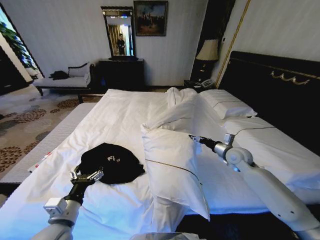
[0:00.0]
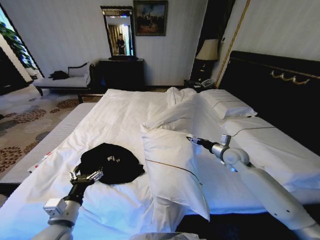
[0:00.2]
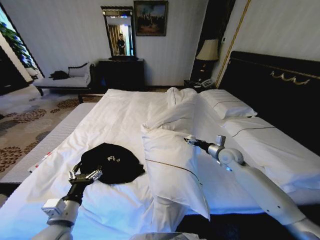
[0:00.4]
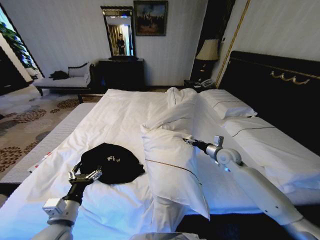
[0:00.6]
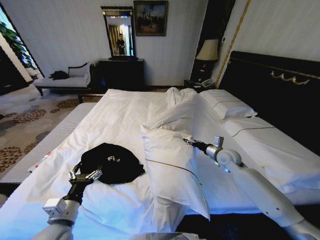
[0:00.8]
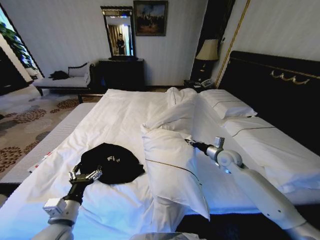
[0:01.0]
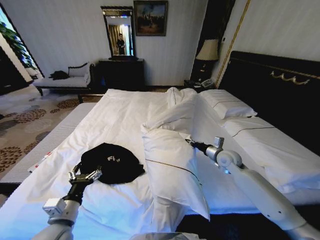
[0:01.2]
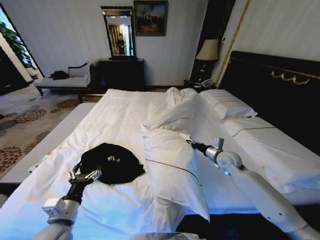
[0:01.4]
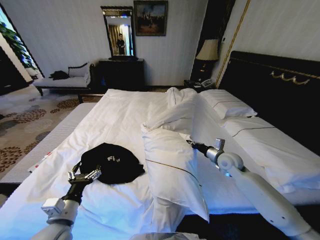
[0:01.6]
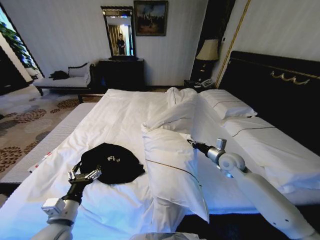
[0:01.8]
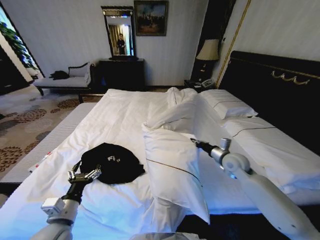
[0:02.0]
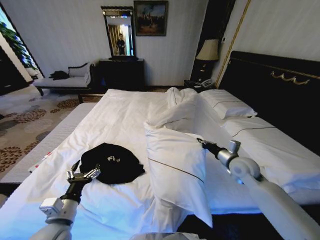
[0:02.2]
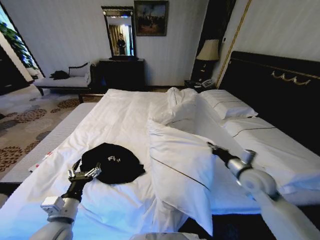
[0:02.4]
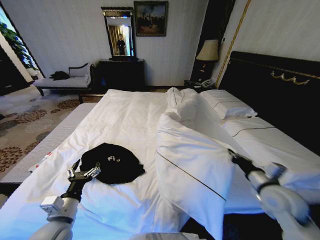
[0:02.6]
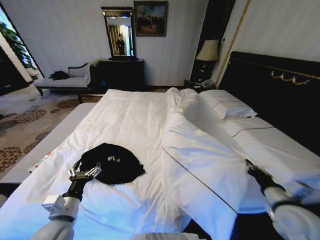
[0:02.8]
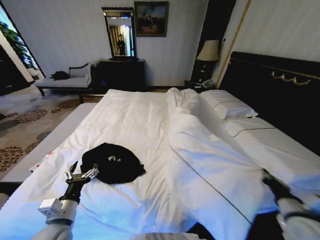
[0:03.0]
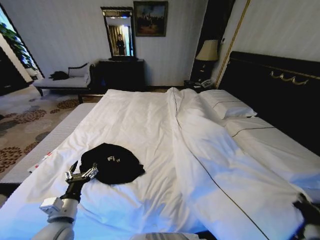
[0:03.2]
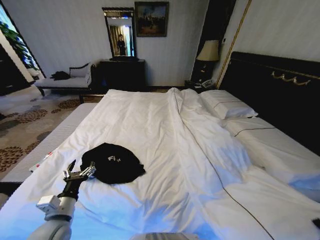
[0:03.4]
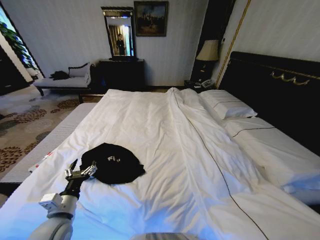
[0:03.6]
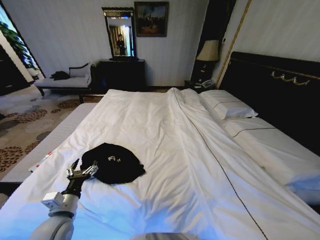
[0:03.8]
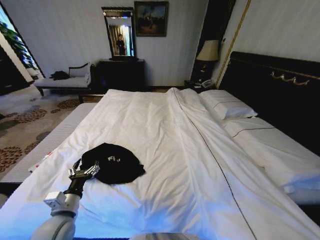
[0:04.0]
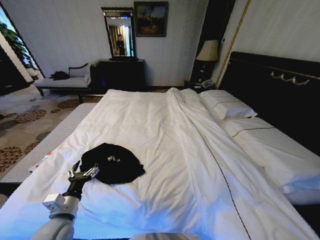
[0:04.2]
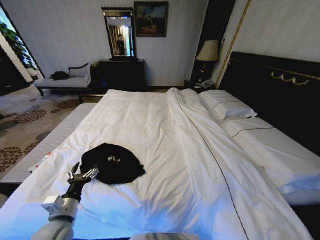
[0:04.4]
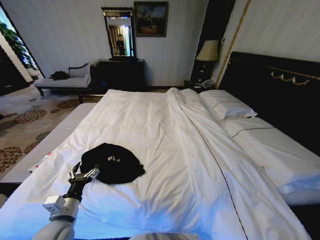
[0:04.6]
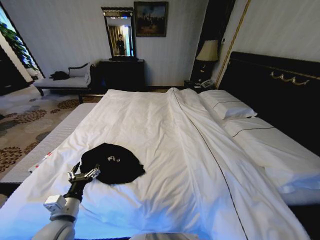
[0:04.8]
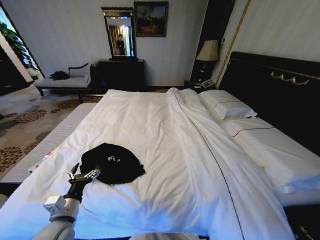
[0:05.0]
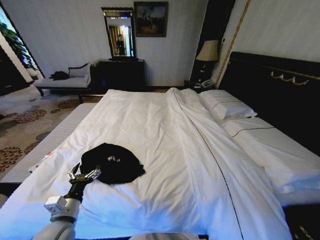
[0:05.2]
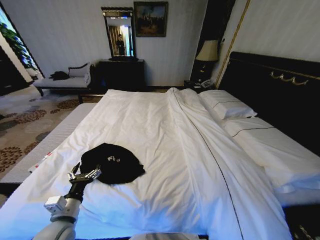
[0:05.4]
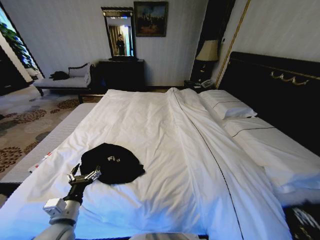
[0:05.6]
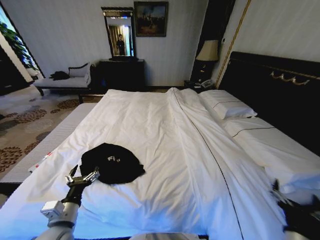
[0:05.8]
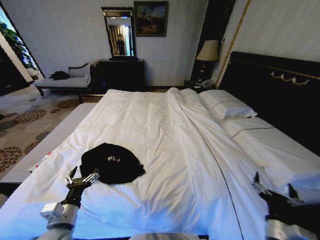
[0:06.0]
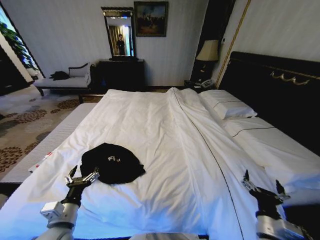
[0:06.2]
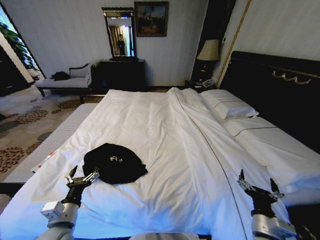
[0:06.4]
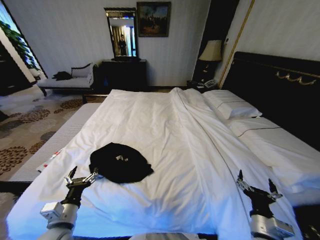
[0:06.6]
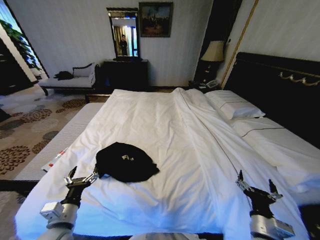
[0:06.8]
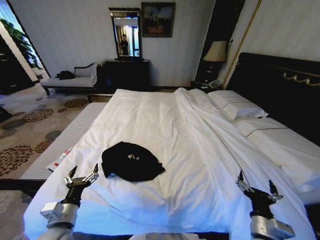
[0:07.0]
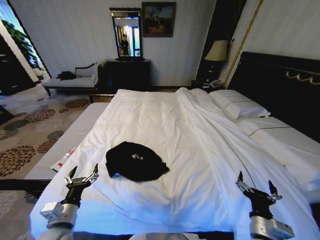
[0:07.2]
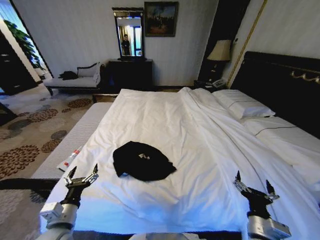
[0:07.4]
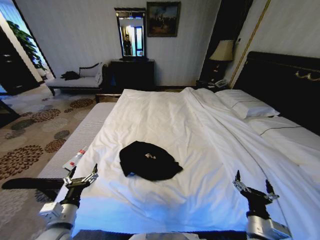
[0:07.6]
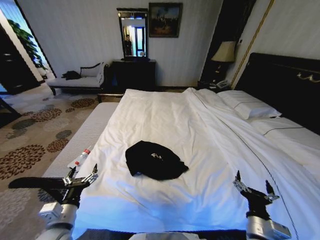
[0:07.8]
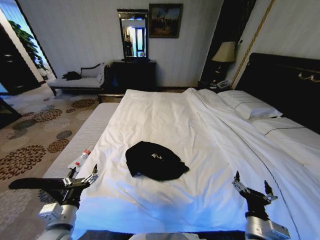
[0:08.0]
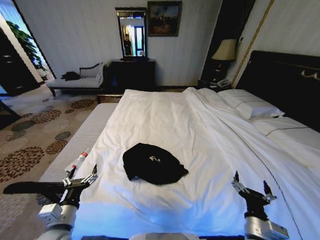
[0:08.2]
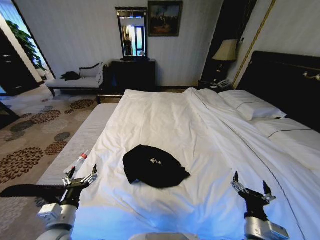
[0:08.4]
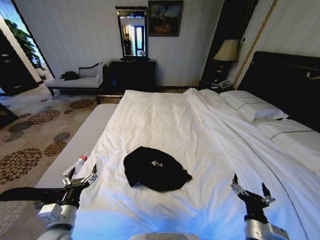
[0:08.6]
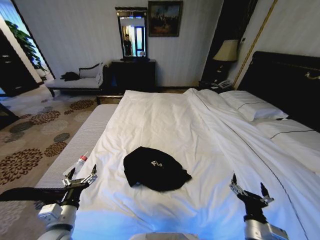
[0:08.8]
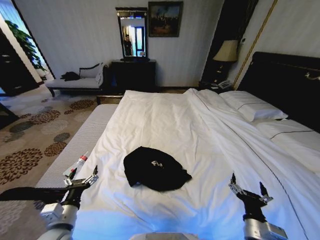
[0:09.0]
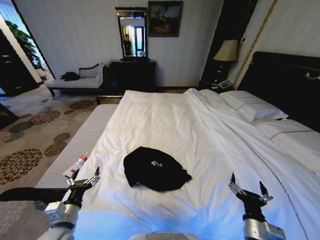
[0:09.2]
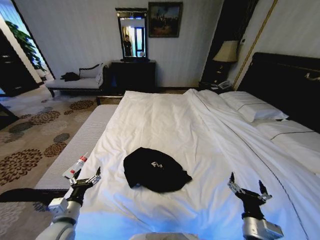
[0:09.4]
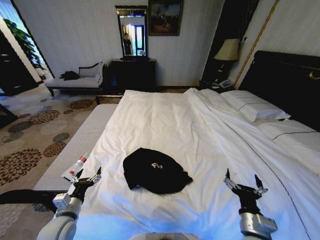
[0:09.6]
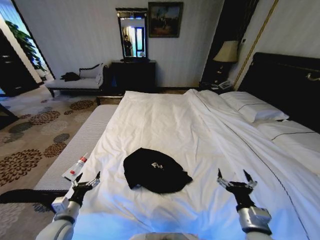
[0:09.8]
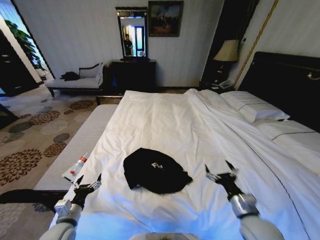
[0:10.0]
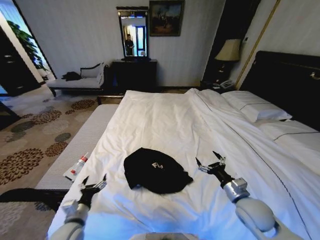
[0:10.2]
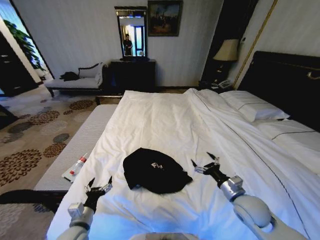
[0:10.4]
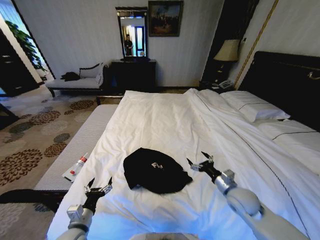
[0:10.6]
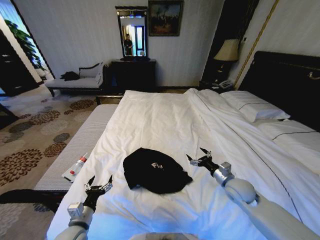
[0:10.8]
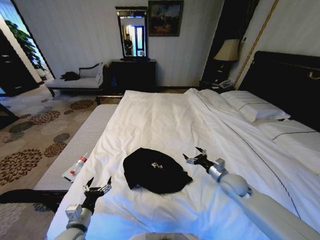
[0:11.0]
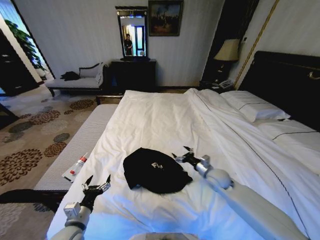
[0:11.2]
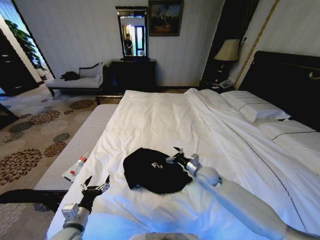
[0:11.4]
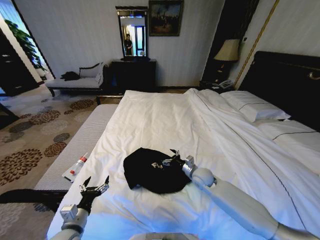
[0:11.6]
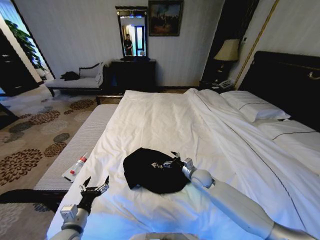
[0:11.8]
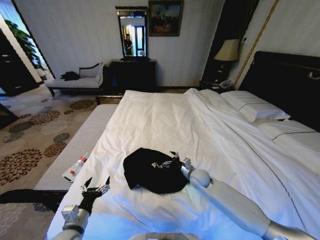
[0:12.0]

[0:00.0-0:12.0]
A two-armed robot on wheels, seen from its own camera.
Task of the whole recording: Fold the clothes on the bed.
0:00.0 to 0:01.6: The right gripper closes its fingers.
0:01.6 to 0:03.0: The right gripper travels backward by about 25 cm.
0:03.0 to 0:04.4: The right gripper goes approximately 20 cm downward and backward.
0:04.4 to 0:06.0: The right gripper travels upward and forward by roughly 15 cm, and opens up.
0:07.6 to 0:09.0: Both grippers stay about where they are.
0:09.0 to 0:10.4: The left gripper moves downward, about 5 cm. Meanwhile the right gripper heads forward, covering approximately 10 cm.
0:10.4 to 0:12.0: The right gripper heads forward, to the left and downward, covering roughly 20 cm.

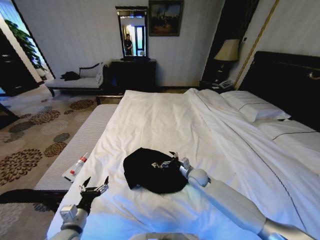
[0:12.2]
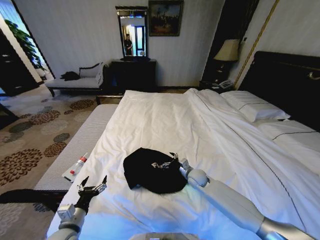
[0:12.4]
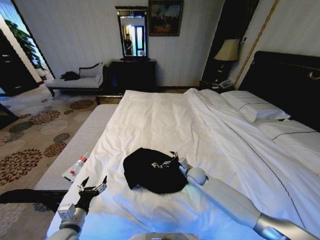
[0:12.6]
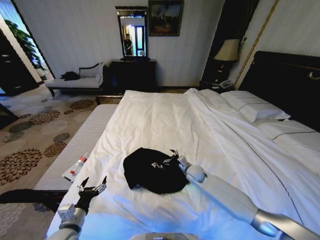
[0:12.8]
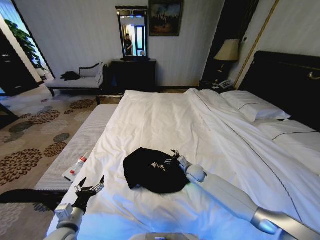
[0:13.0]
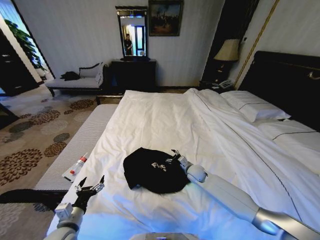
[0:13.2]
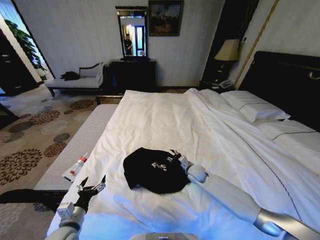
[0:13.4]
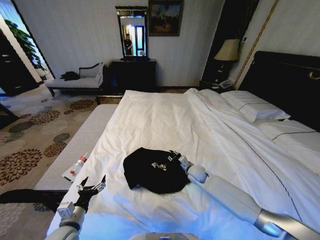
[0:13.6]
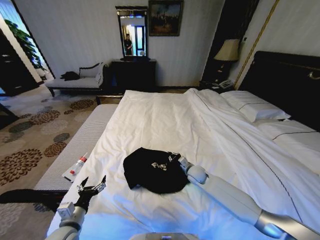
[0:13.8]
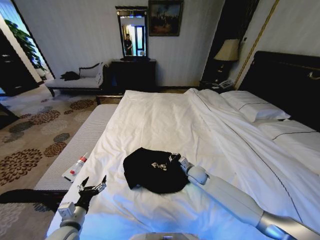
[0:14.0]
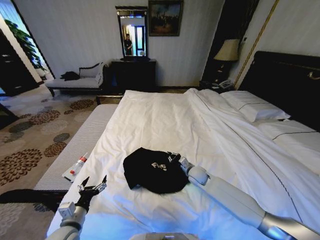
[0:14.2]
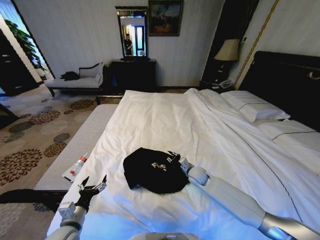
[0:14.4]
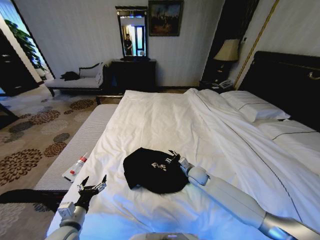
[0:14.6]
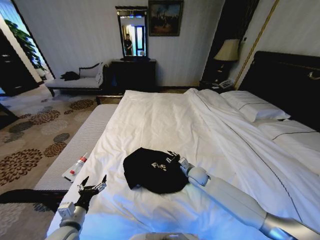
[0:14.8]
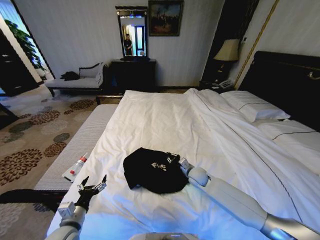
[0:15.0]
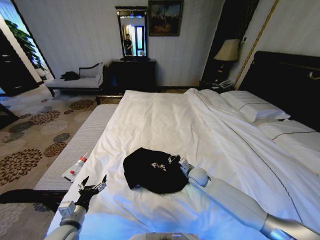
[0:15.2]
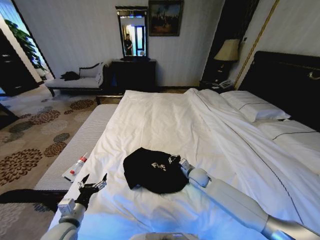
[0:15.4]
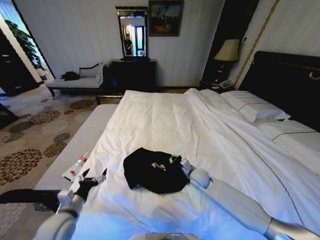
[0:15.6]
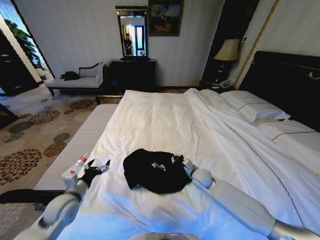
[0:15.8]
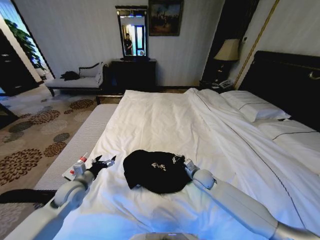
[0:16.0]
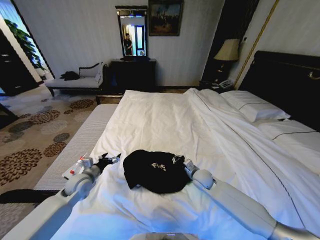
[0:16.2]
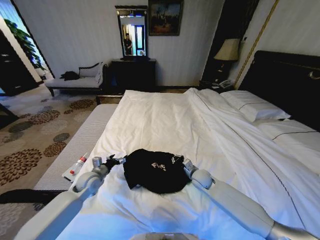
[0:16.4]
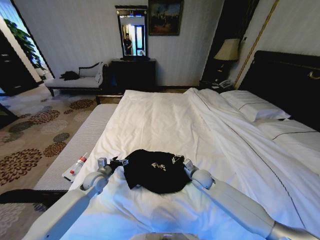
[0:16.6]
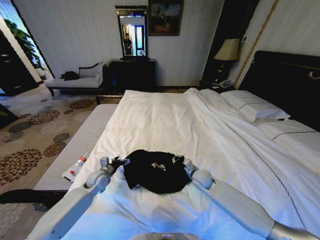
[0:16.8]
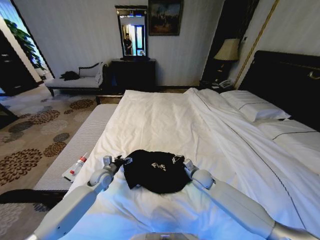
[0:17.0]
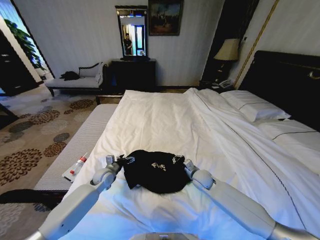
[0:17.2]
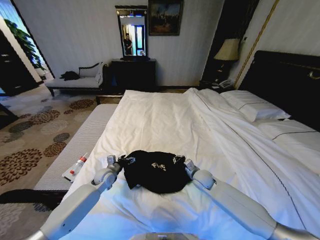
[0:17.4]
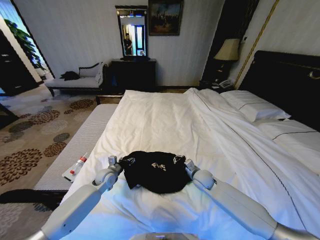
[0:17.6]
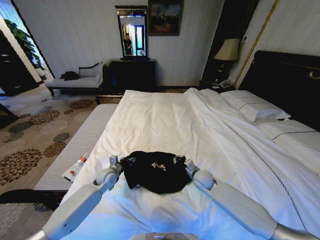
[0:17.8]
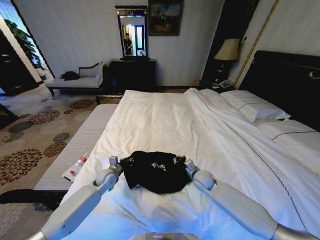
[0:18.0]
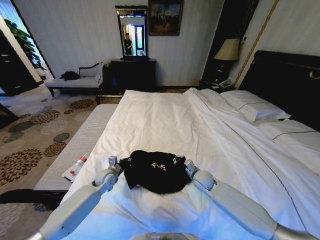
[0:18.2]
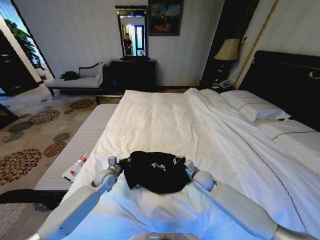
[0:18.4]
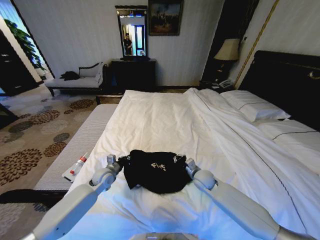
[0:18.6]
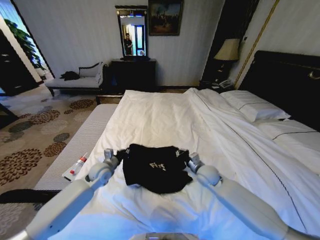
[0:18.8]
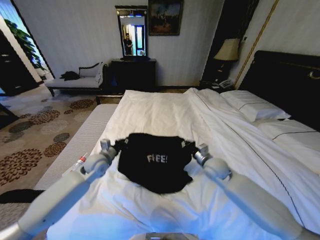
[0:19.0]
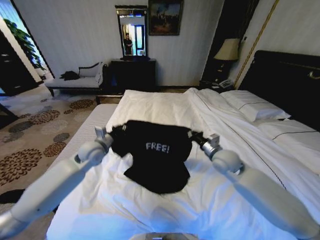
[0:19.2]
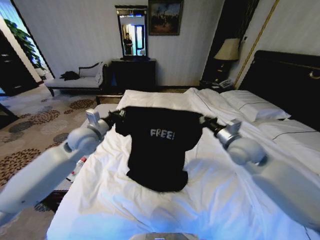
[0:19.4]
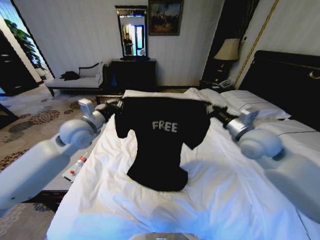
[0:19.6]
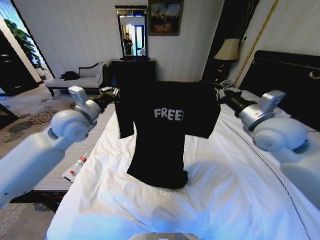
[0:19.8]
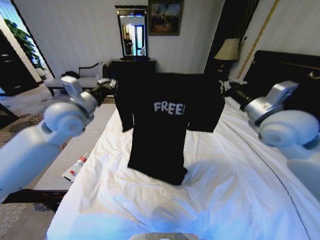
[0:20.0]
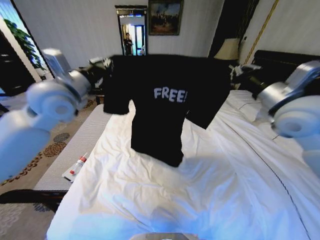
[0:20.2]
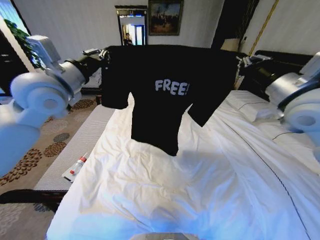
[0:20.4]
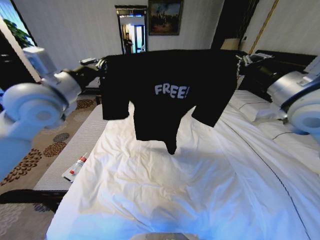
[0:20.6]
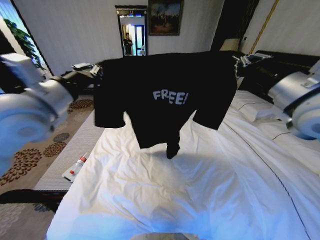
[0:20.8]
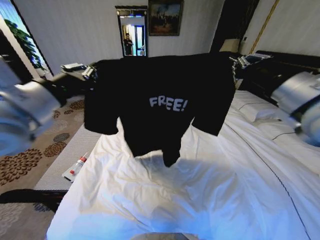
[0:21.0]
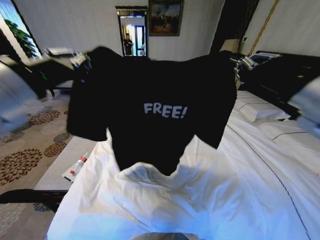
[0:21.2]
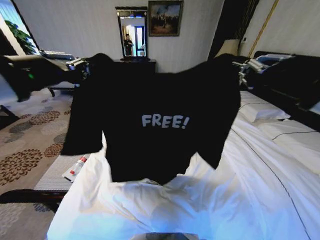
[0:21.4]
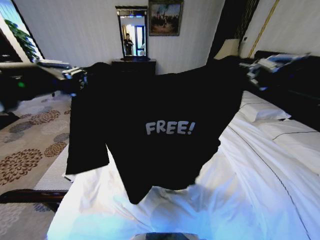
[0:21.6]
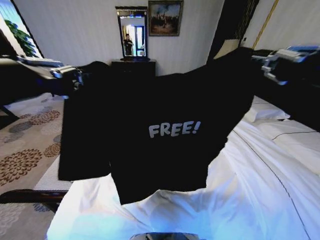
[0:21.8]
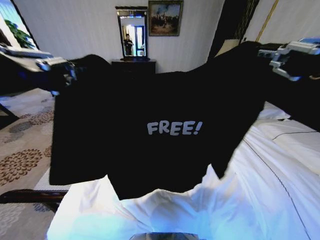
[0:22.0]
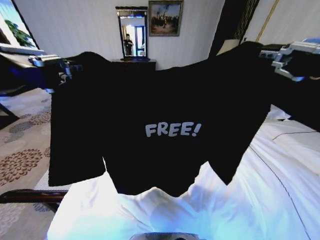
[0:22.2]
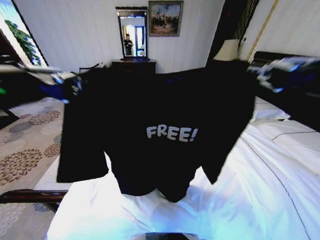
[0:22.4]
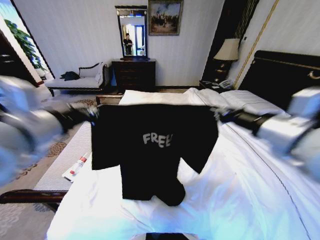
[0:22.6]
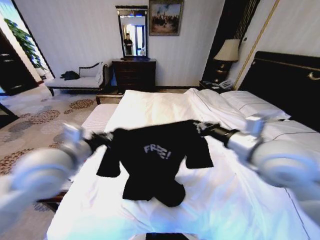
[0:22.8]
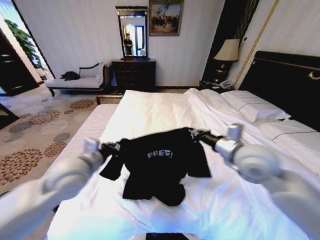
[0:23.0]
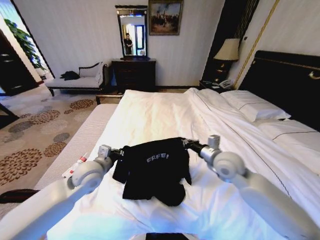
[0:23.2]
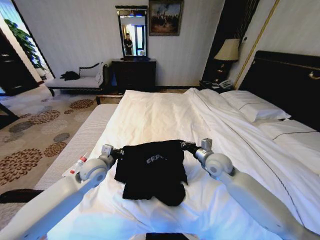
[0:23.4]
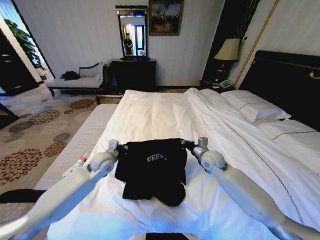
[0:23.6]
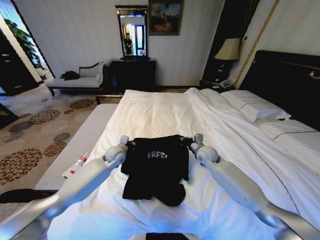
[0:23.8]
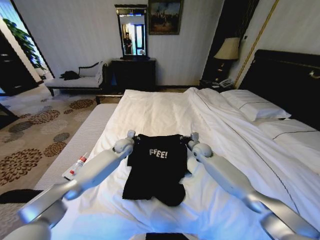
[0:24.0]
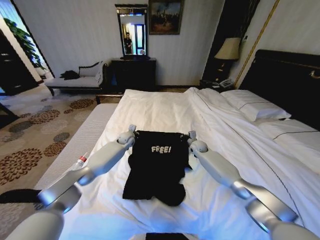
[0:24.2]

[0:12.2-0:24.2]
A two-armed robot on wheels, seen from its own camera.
Task of the whole recording: Fold the clothes on the bed.
0:12.2 to 0:13.8: The right gripper closes.
0:13.8 to 0:15.2: There are only small adjustments of the grippers.
0:15.2 to 0:16.6: The left gripper shifts some 20 cm forward.
0:16.6 to 0:18.2: The left gripper shifts by some 5 cm, and closes its fingers.
0:18.2 to 0:19.8: The grippers both shift upward by some 35 cm.
0:19.8 to 0:21.2: The left gripper moves backward and upward, roughly 20 cm; the right gripper moves upward and backward, roughly 15 cm.
0:21.2 to 0:22.6: The right gripper goes backward and returns, roughly 10 cm each way.
0:22.6 to 0:24.2: Both grippers travel together downward and forward, approximately 60 cm.
